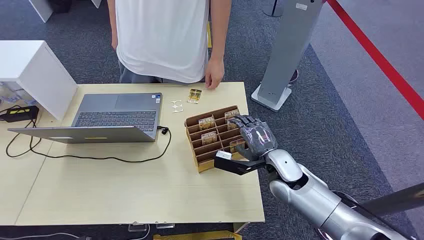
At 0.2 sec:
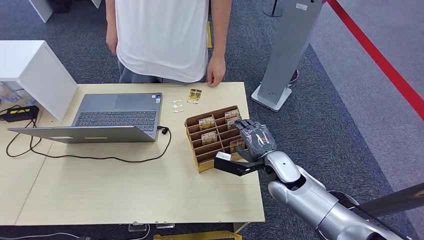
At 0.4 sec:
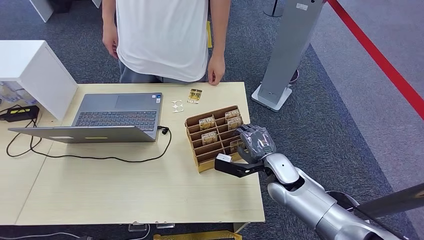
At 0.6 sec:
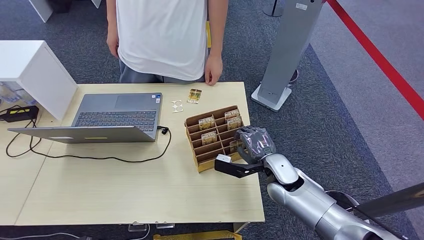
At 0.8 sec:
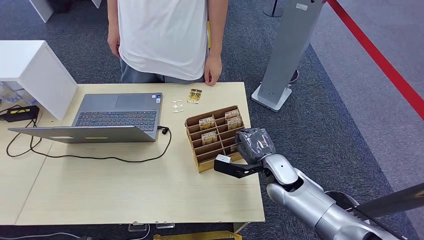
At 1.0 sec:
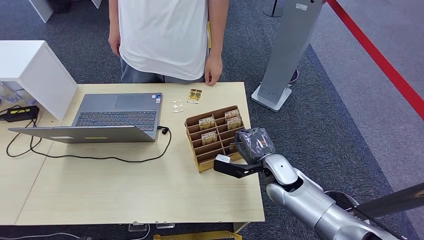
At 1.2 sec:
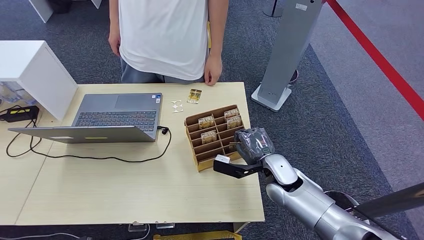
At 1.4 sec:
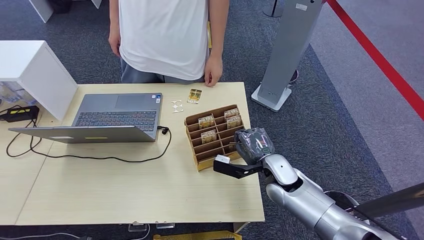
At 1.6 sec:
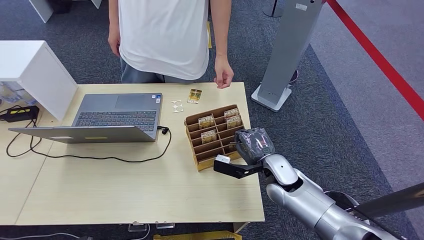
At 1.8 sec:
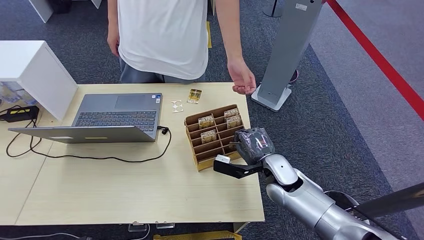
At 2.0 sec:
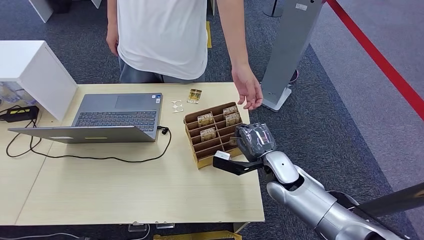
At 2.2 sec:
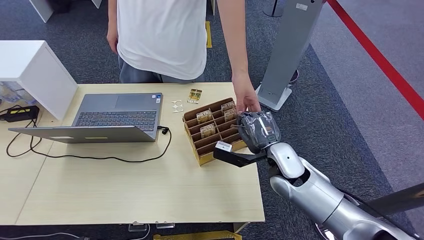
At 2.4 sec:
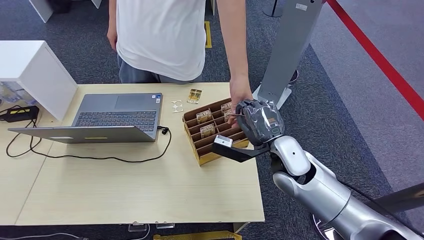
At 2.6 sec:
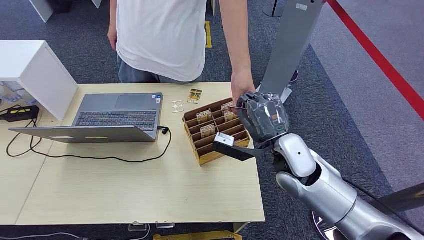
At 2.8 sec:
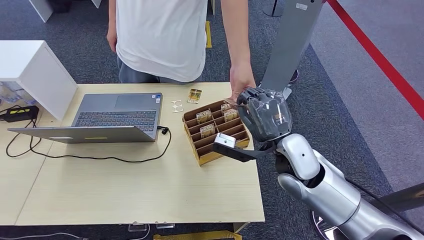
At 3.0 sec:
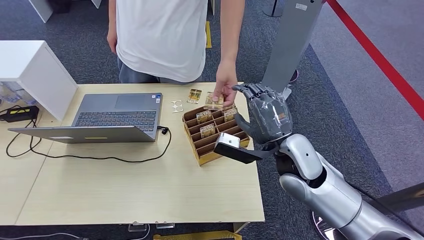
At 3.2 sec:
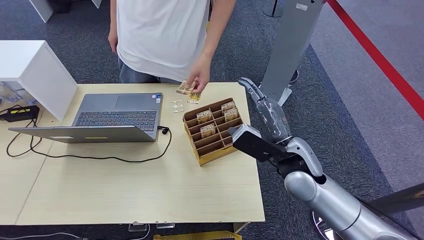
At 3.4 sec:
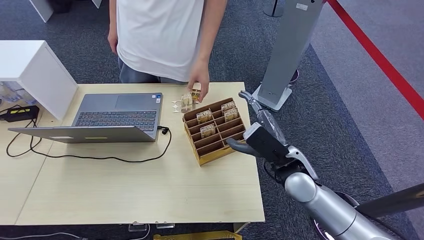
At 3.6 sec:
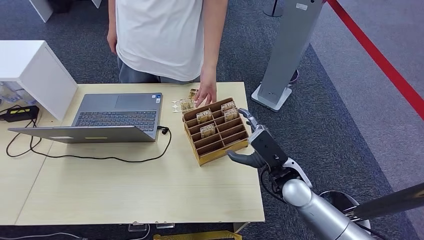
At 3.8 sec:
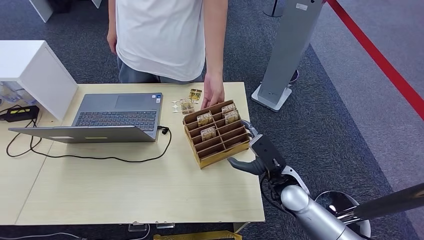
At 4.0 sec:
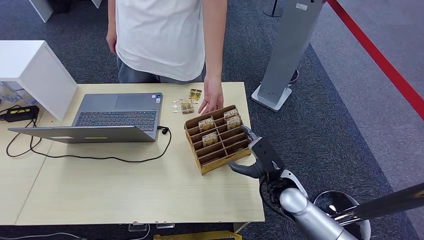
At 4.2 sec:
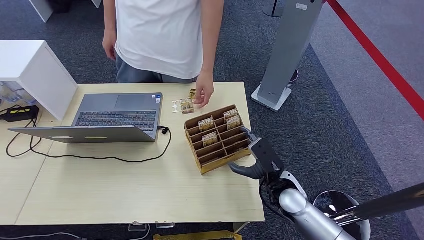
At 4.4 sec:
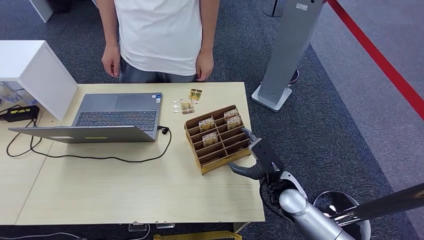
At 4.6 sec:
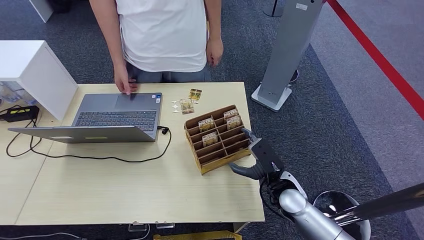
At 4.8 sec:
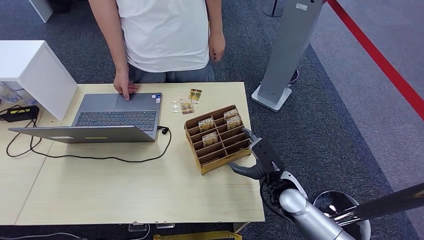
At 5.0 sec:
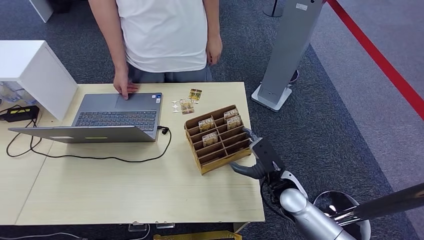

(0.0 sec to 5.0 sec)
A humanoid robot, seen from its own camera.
Step, 0.0 sec - 2.0 sec: Pick up the key card from the card box.
Step, 2.4 sec - 5.0 sec: Hand the key card to the target.
1.6 sec - 3.4 sec: The right hand shifts roughly 10 cm upward.
3.4 sec - 5.0 sec: The right hand moves downward, about 10 cm.
